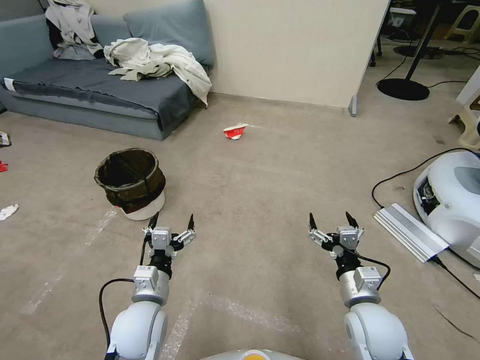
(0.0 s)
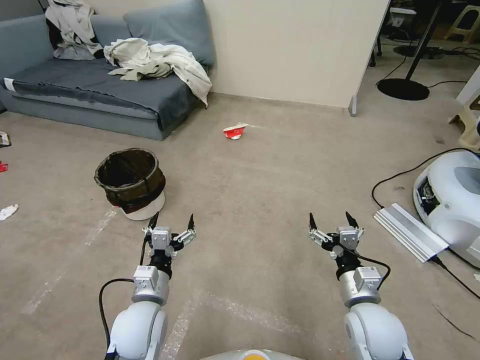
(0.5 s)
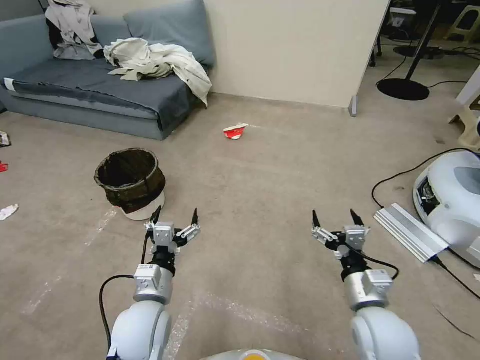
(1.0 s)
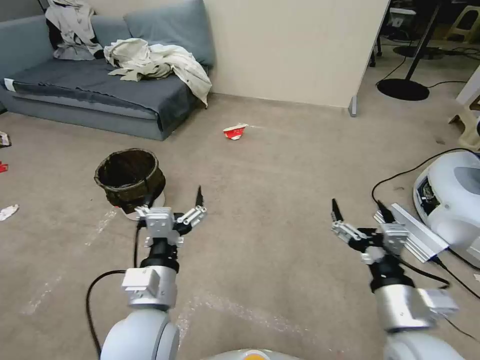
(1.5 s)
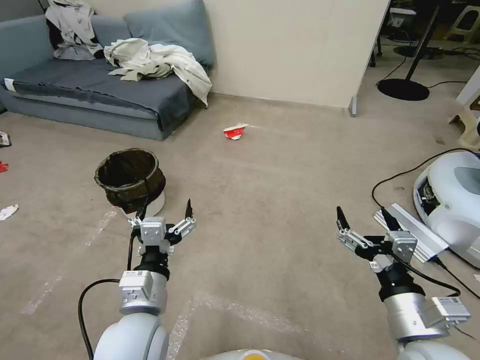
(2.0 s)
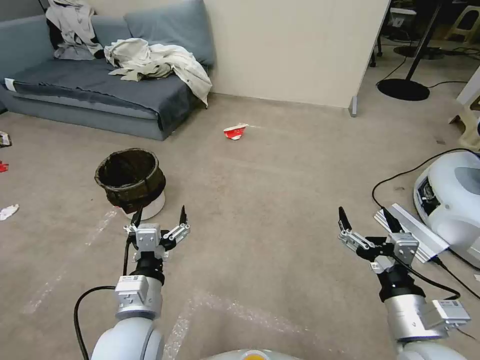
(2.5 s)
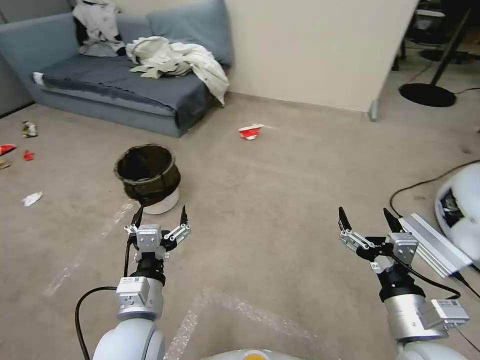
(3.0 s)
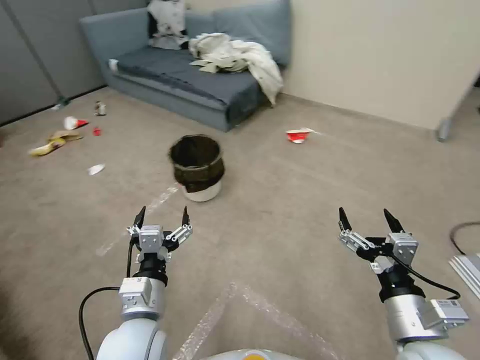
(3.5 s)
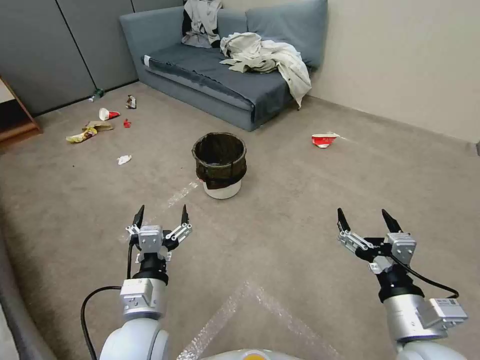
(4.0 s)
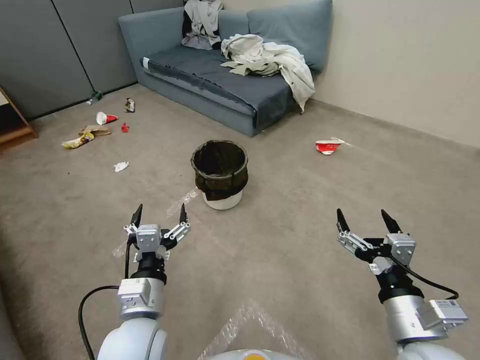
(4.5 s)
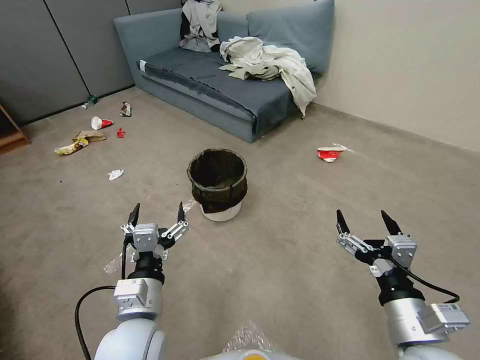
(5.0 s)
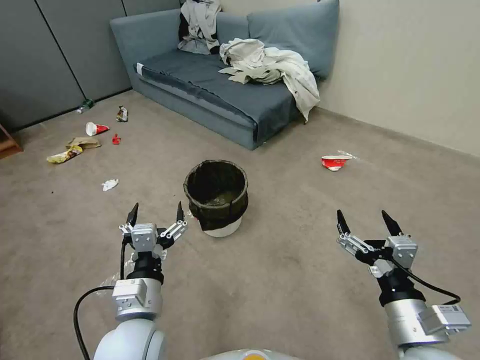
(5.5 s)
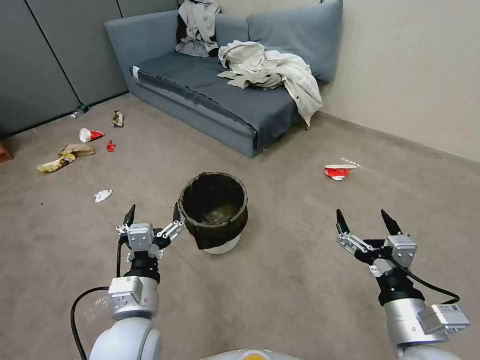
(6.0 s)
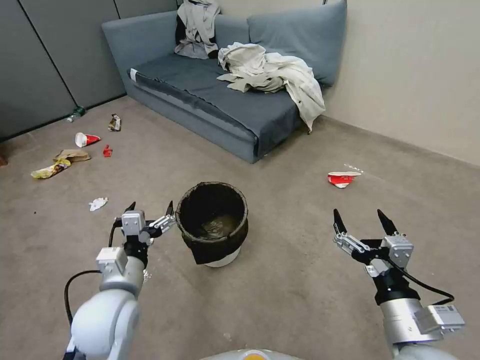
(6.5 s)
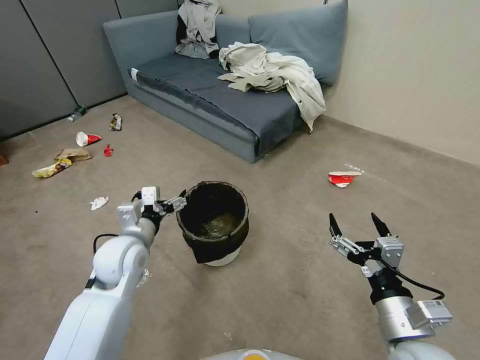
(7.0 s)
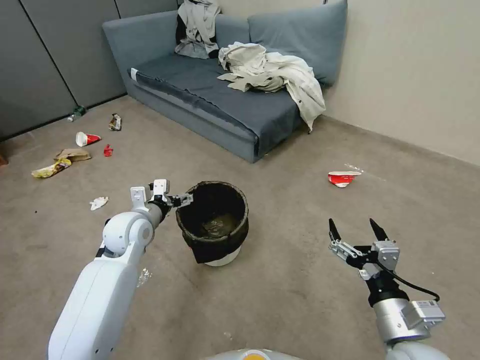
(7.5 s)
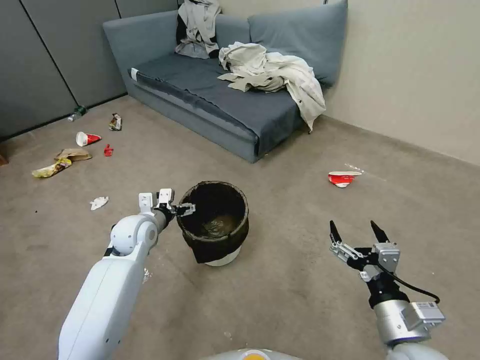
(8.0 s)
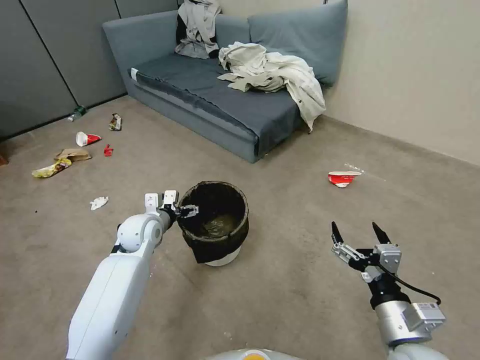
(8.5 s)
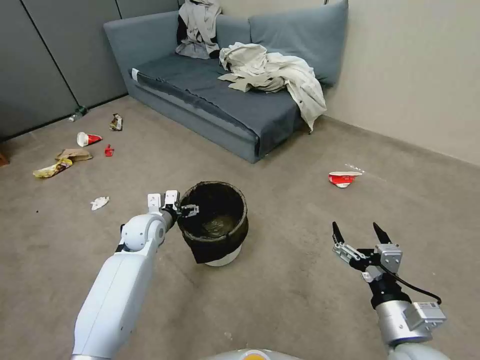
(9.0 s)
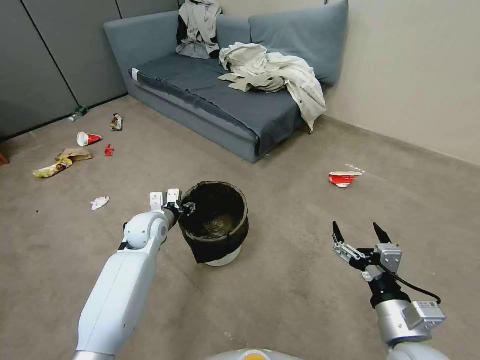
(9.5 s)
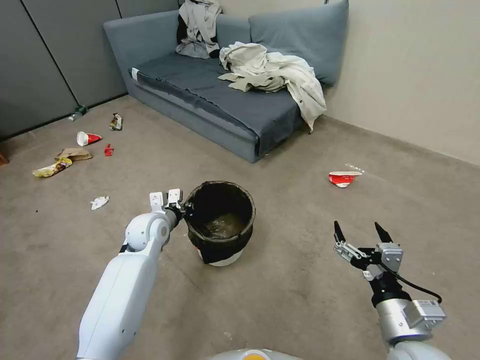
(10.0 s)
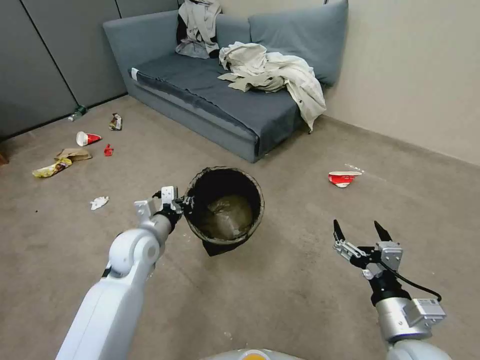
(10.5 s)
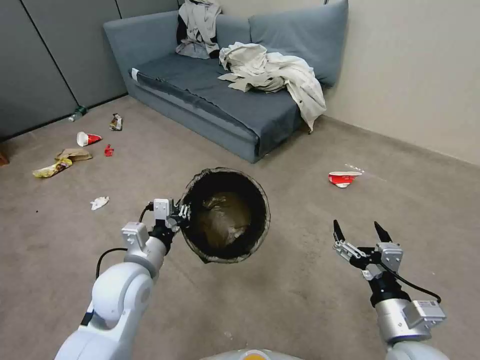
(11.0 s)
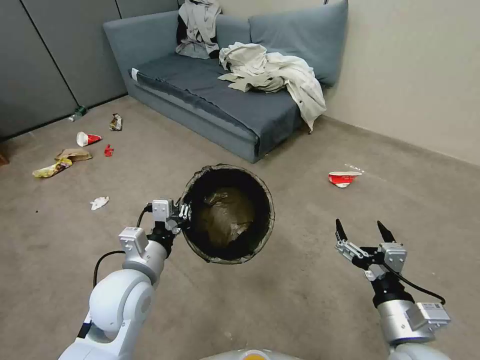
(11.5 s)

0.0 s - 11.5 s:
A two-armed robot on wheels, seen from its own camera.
Task of the whole recording: Pick up the trash can from the floor.
6.0 s - 7.5 s: The left gripper travels forward by roughly 20 cm.
7.5 s - 9.5 s: The left gripper is displaced downward by about 5 cm, and closes.
9.5 s - 11.5 s: The left gripper travels backward and upward by roughly 20 cm, and closes its fingers.

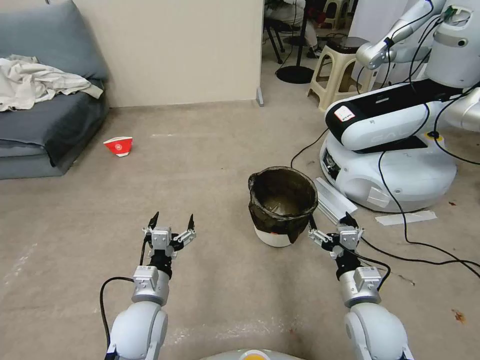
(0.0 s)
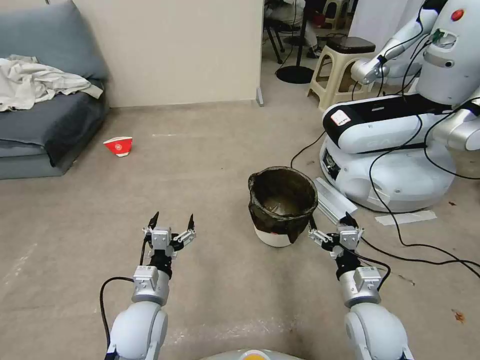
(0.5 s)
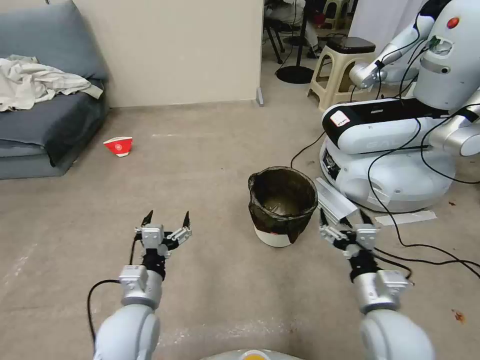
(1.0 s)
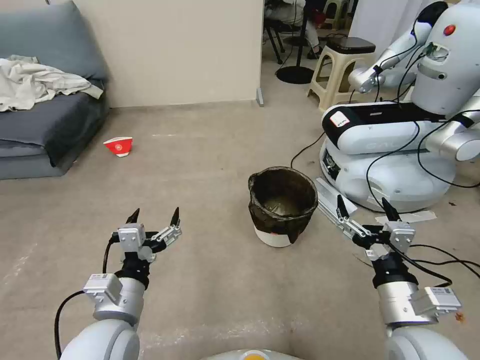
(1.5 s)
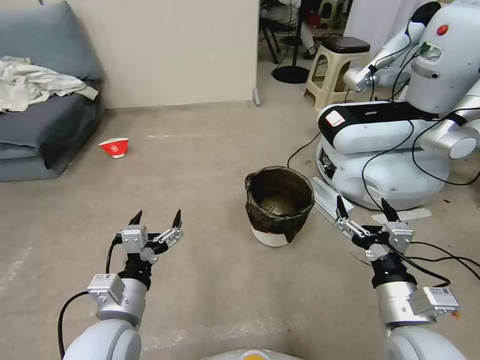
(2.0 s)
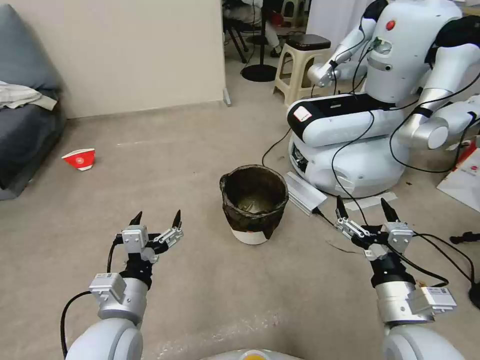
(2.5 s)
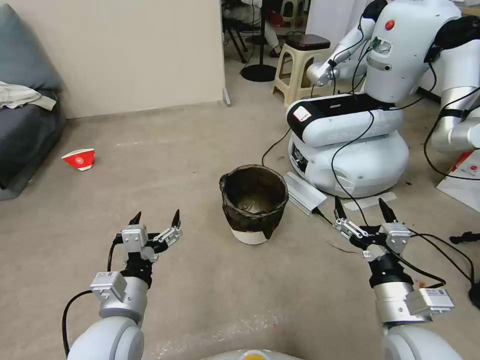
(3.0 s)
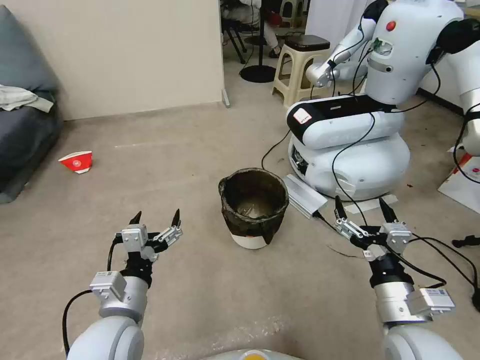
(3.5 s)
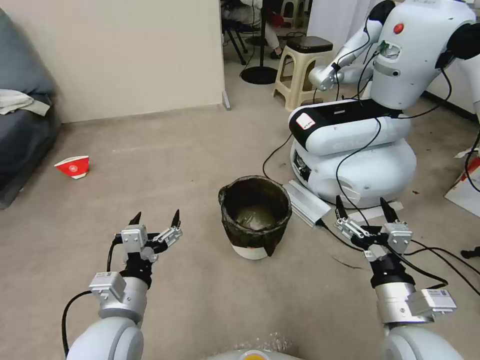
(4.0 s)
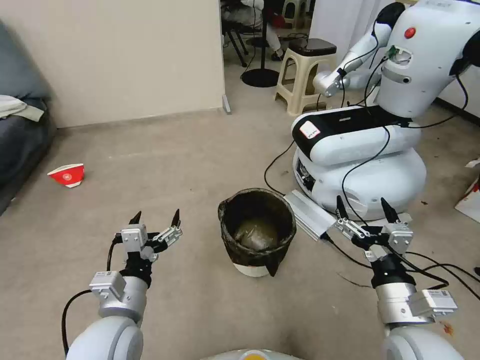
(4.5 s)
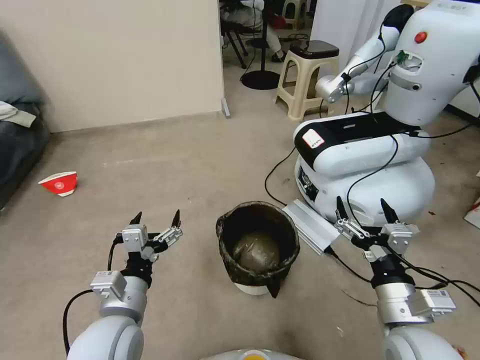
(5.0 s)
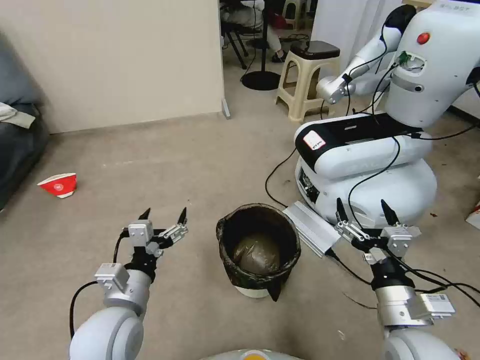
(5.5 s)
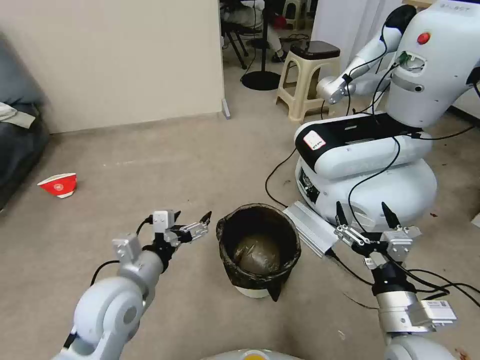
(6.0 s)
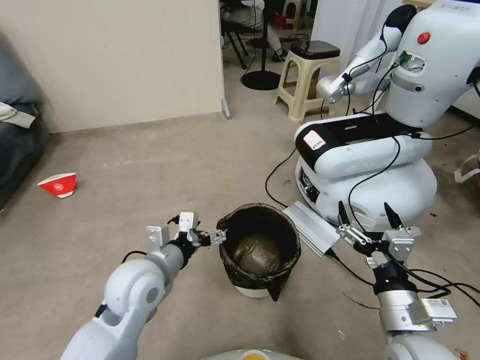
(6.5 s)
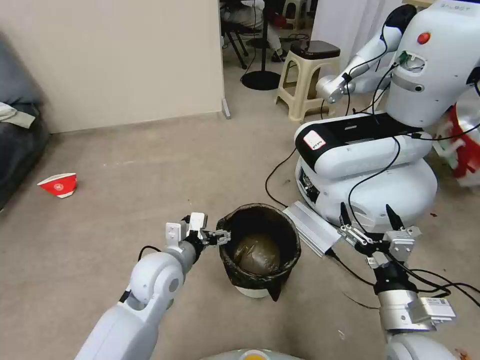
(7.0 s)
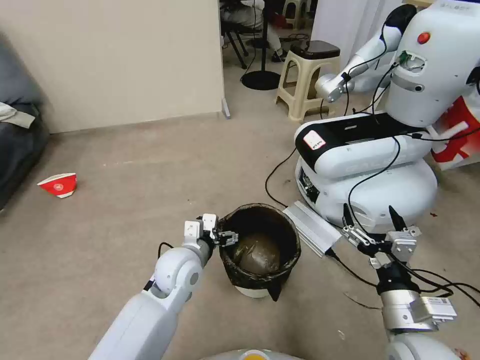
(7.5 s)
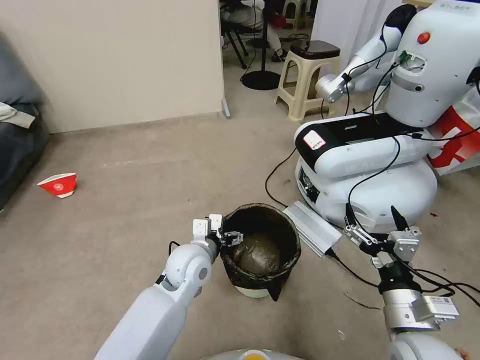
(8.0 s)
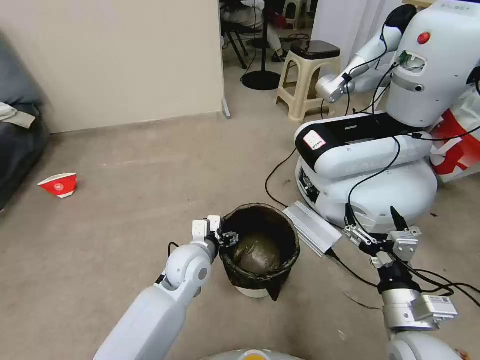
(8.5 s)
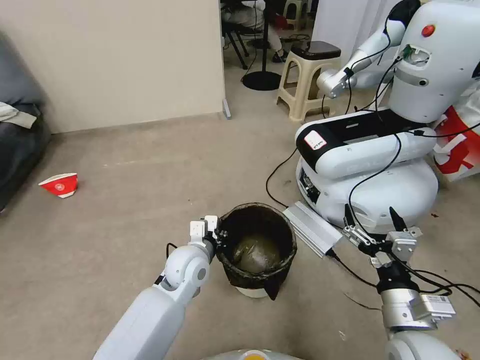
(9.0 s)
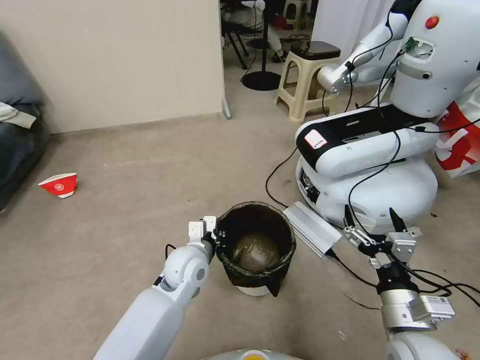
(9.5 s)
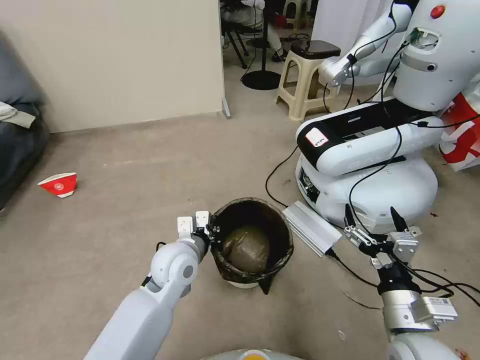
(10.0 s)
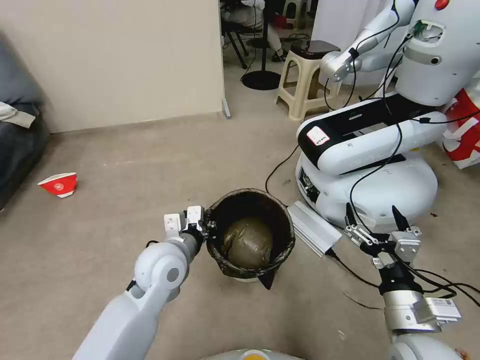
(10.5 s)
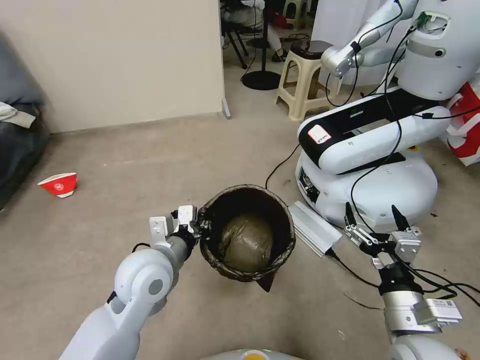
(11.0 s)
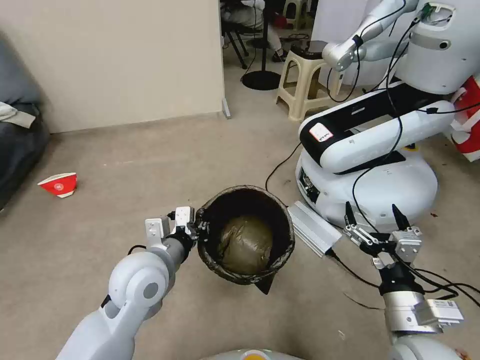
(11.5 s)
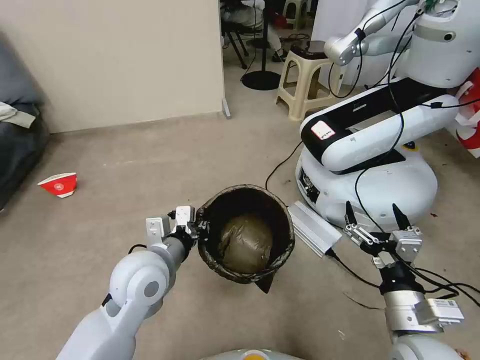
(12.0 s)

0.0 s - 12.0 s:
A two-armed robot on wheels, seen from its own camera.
Task of the whole recording: Pick up the trash can from the floor.
4.0 s - 6.0 s: The left gripper shifts roughly 5 cm forward.
6.0 s - 8.0 s: The left gripper shifts roughly 15 cm to the right, forward and downward.
8.0 s - 10.0 s: The left gripper closes.
10.0 s - 12.0 s: The left gripper travels upward and backward by some 10 cm.

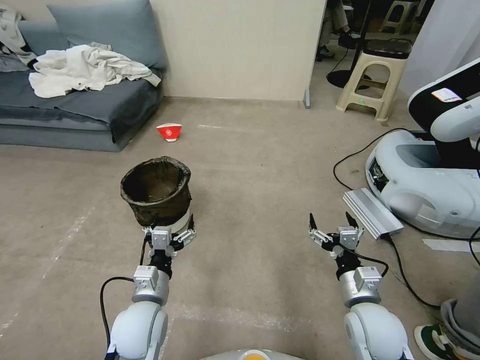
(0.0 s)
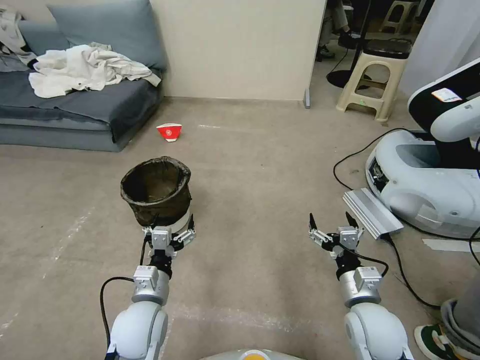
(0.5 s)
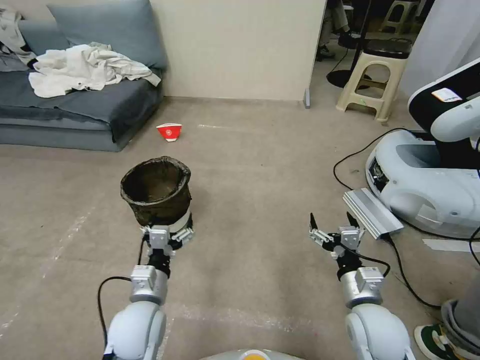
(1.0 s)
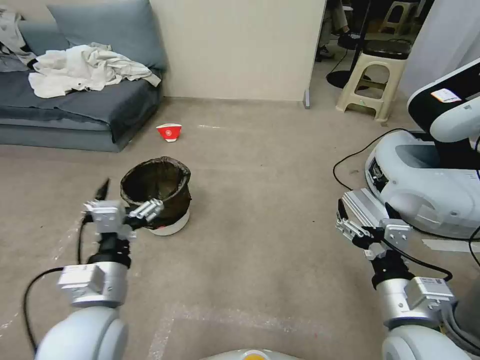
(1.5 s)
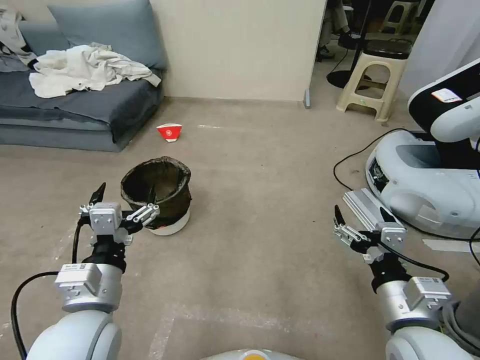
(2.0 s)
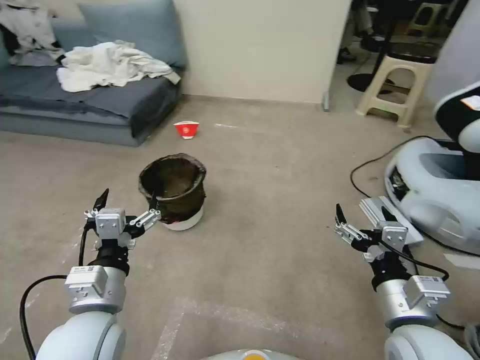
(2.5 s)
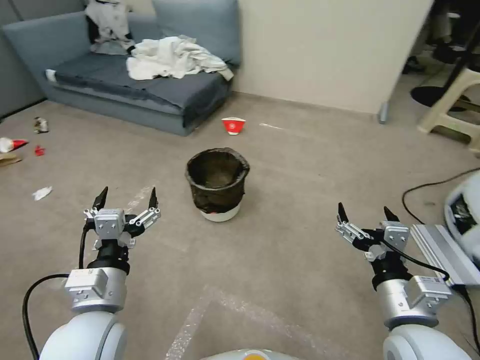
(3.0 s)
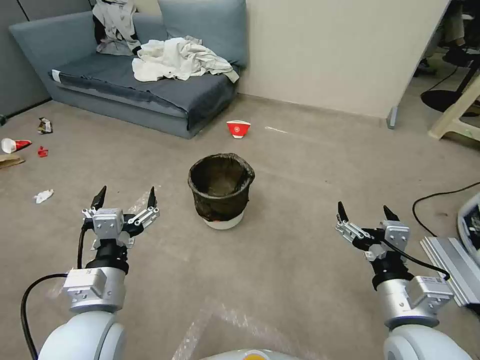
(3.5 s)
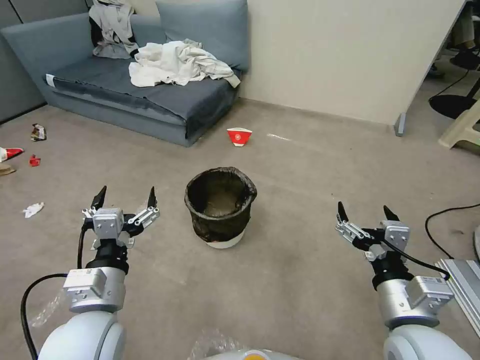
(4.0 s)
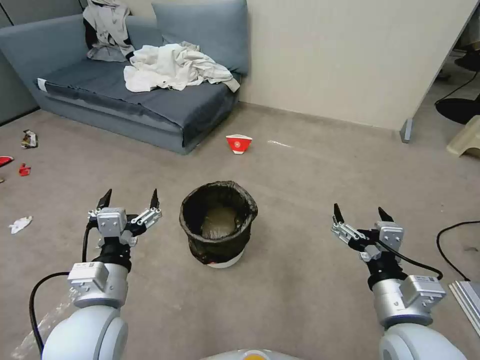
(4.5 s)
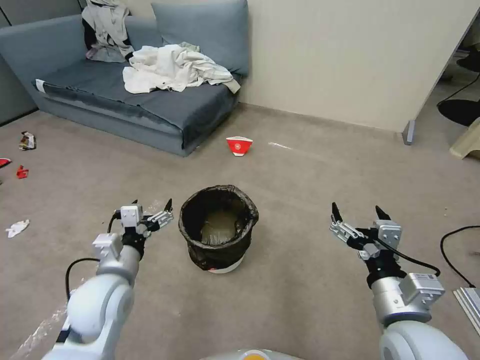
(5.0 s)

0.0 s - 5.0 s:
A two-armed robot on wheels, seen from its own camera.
Task of the whole recording: Pick up the trash can from the floor.
2.5 s - 5.0 s: The left gripper is displaced forward and downward by roughly 10 cm.
